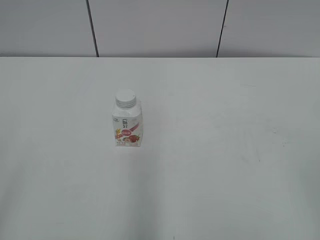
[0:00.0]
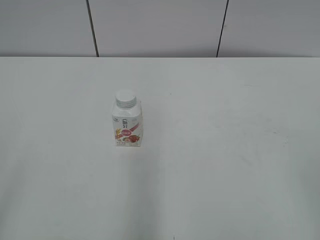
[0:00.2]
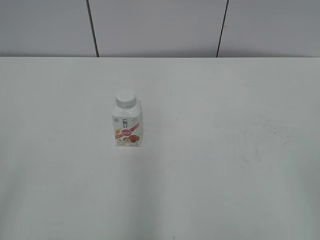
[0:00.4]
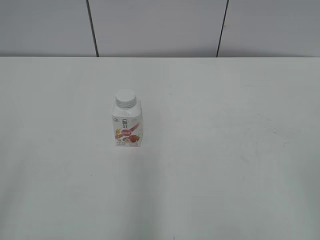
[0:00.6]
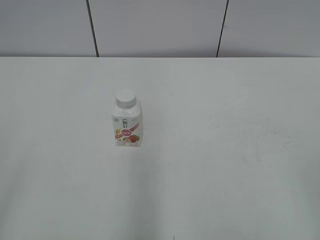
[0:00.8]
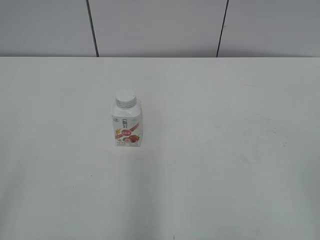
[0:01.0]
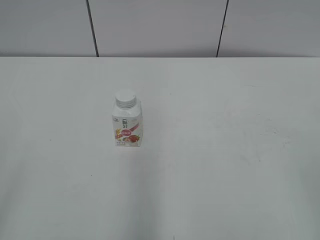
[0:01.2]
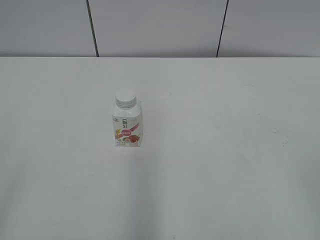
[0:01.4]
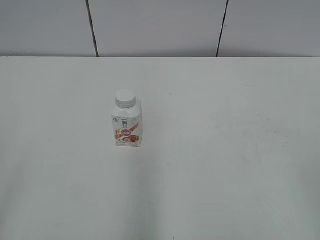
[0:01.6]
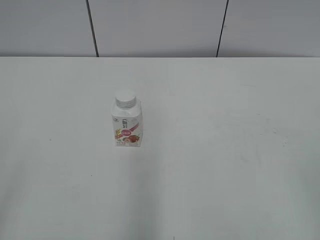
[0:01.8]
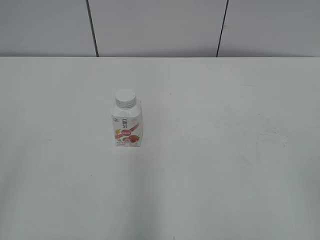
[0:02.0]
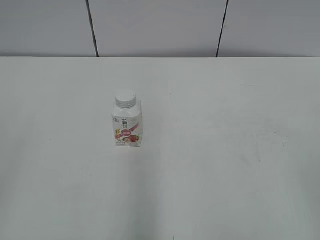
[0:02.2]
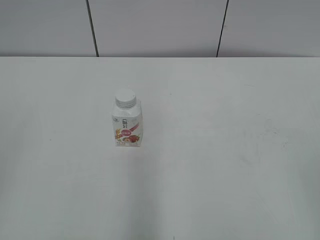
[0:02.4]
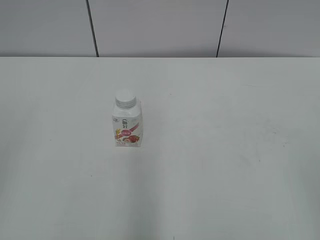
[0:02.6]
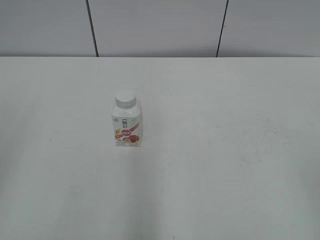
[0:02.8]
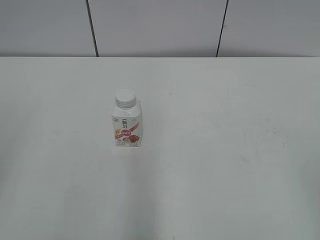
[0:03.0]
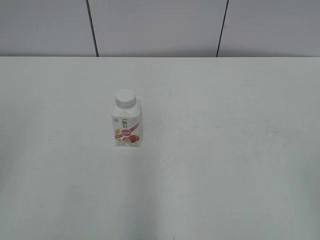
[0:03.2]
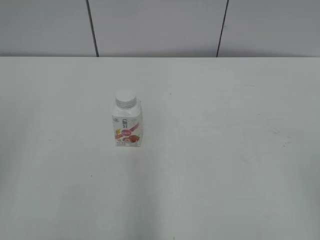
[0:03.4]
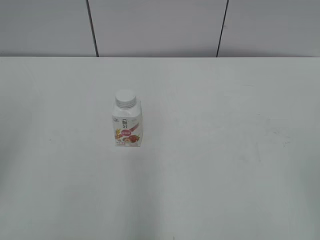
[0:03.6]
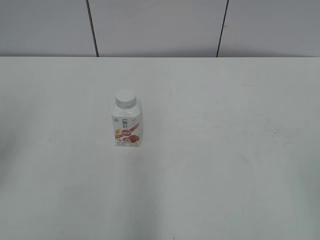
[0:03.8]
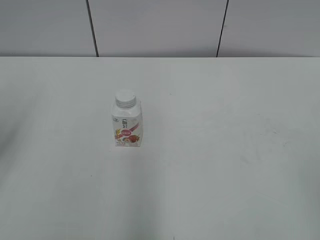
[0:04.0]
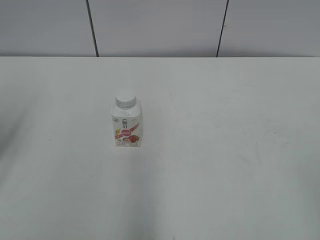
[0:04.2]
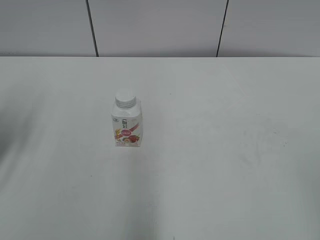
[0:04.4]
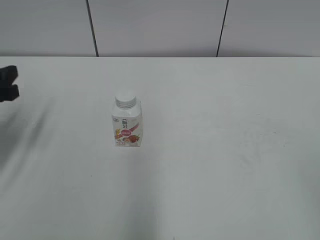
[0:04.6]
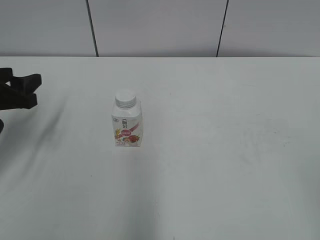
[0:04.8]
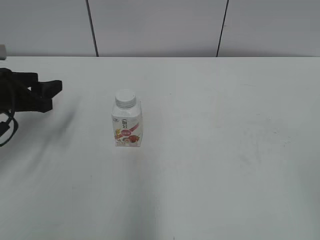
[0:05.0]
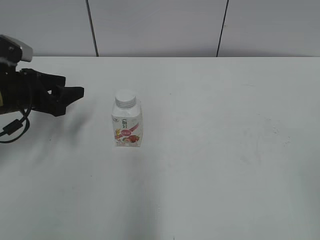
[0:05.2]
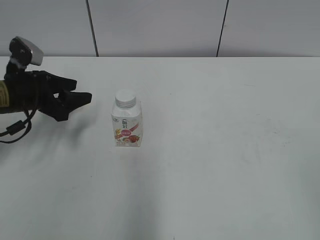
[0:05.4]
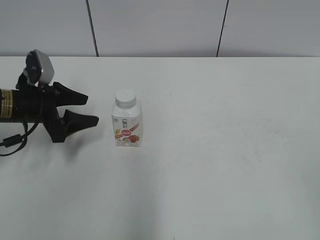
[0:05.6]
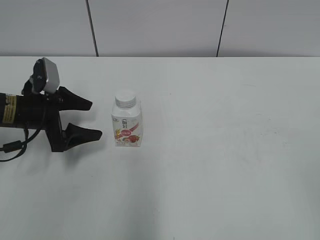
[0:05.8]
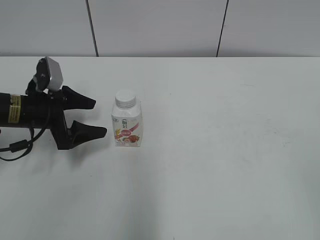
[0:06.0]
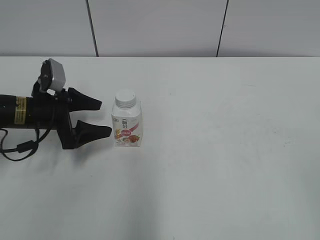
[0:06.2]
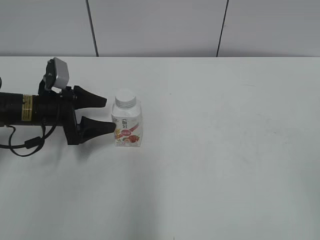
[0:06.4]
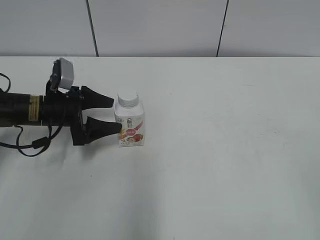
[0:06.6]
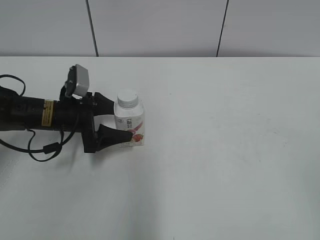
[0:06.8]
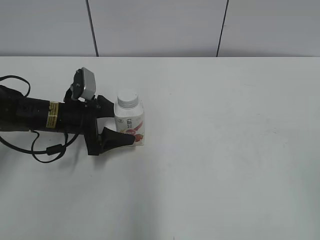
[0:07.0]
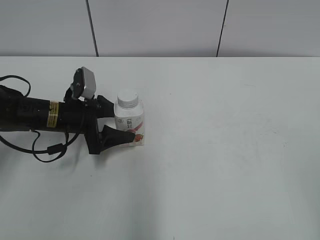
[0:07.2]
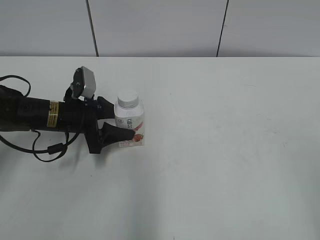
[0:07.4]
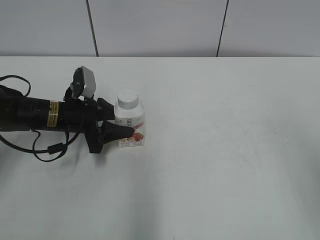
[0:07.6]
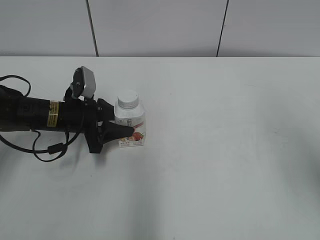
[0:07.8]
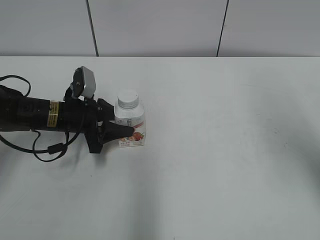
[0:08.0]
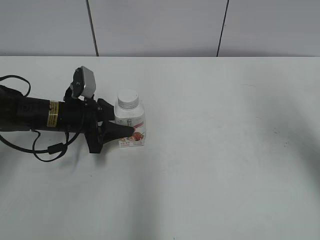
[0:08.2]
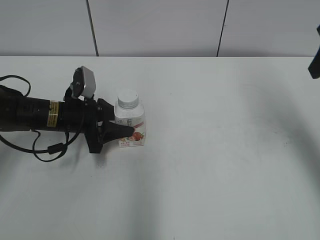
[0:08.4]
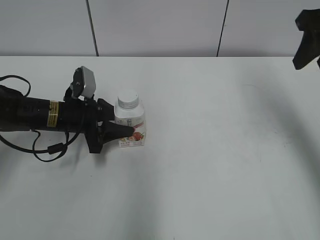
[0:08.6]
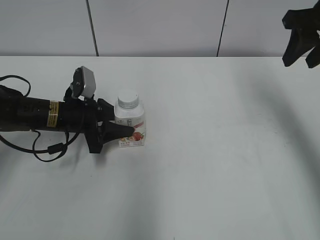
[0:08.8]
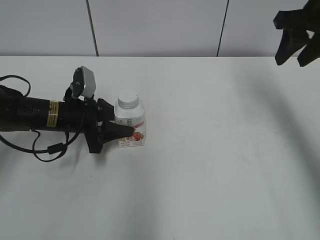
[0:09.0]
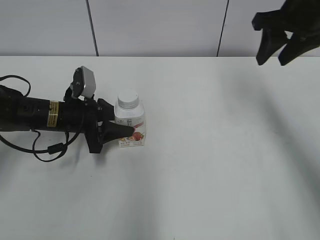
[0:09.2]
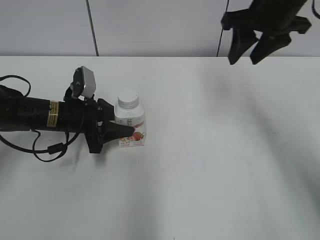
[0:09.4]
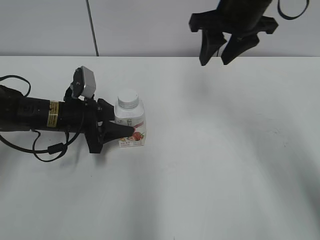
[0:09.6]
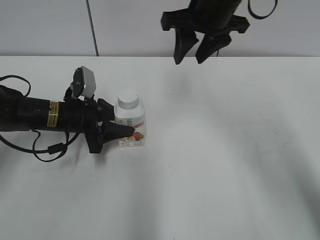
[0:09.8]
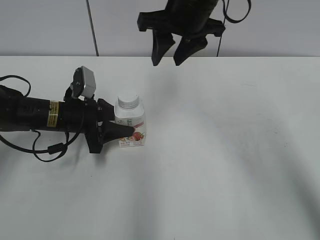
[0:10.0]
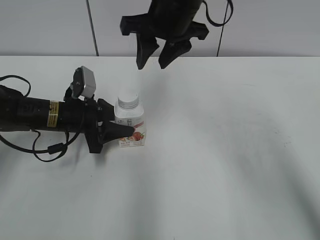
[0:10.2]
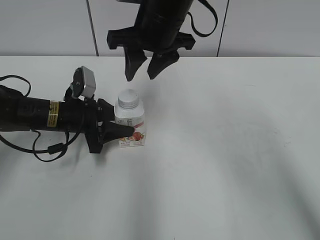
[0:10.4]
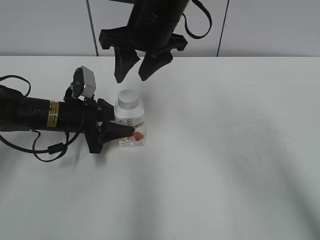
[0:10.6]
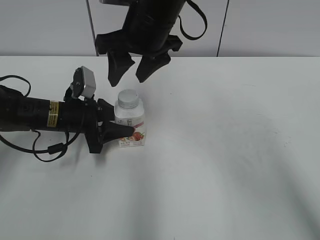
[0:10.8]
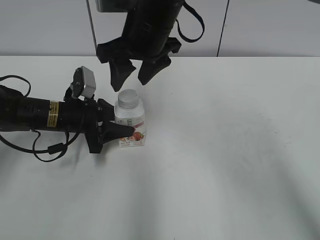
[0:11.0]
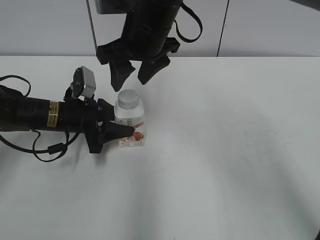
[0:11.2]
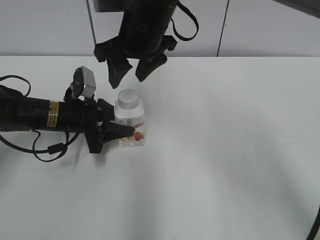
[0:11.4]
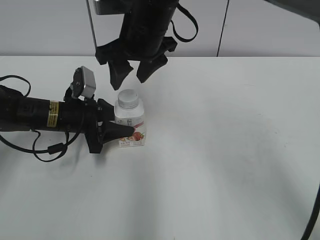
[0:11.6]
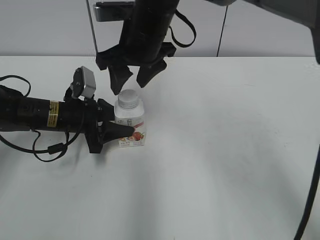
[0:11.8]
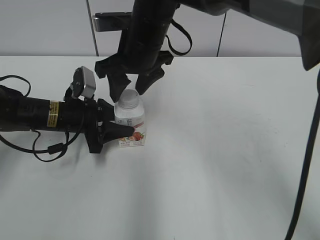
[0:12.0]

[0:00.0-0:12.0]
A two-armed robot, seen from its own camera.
Step, 0:00.0 to 0:07.6: Grab the Yili Changqing with the left hand.
0:03.0 to 0:04.4: The left gripper heads forward and downward, covering about 15 cm.
0:04.4 to 0:06.0: The left gripper heads downward, forward and to the right, covering some 15 cm, and opens.
0:06.0 to 0:07.6: The left gripper goes roughly 5 cm to the right, and closes its fingers; the right gripper is displaced forward and upward by some 10 cm, and closes.
0:07.6 to 0:09.0: The right gripper goes some 30 cm forward.
0:09.0 to 0:10.4: The right gripper shifts approximately 25 cm to the left.
0:10.4 to 0:12.0: The right gripper moves about 5 cm, and opens.

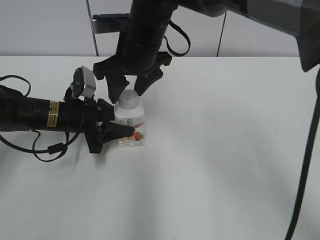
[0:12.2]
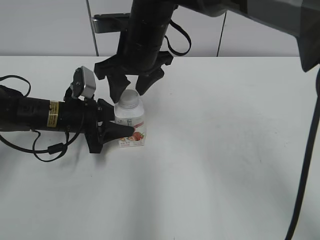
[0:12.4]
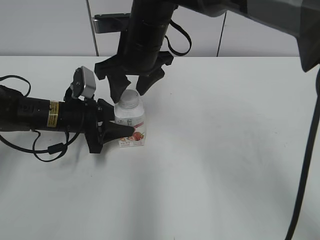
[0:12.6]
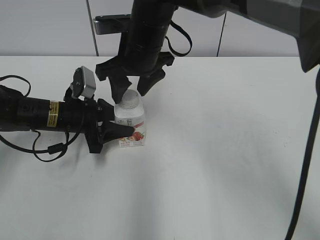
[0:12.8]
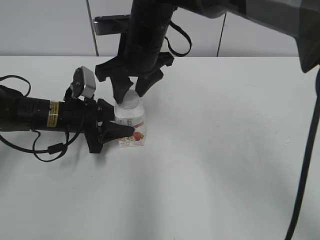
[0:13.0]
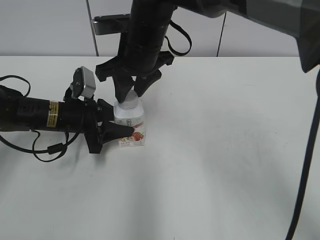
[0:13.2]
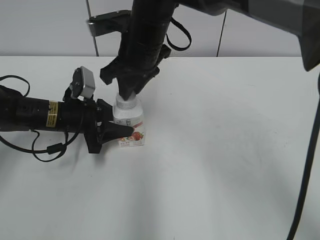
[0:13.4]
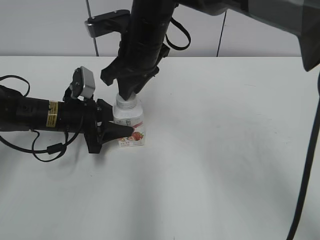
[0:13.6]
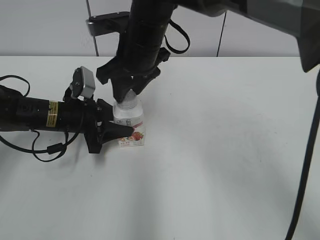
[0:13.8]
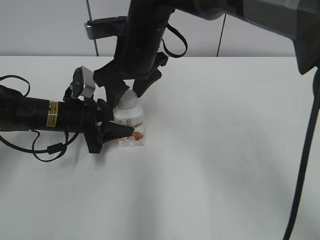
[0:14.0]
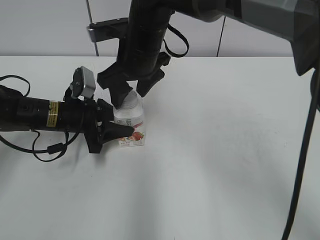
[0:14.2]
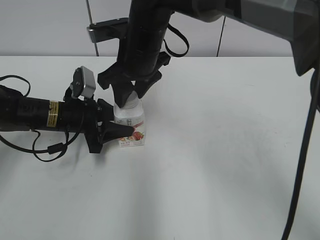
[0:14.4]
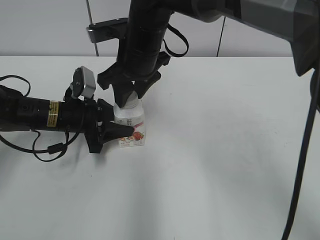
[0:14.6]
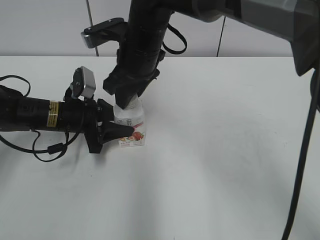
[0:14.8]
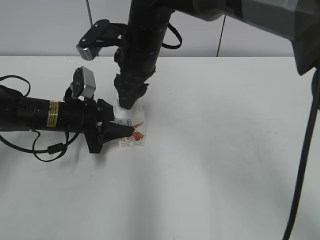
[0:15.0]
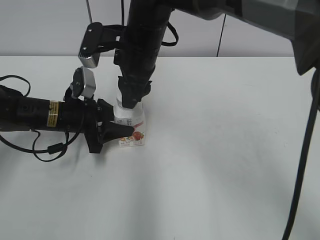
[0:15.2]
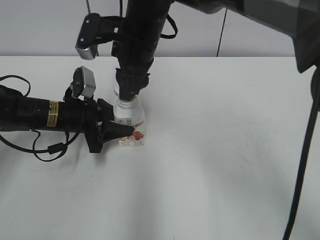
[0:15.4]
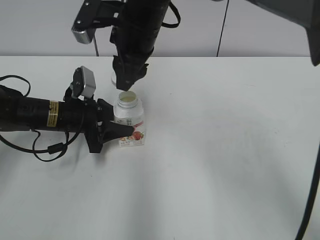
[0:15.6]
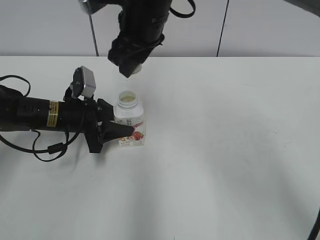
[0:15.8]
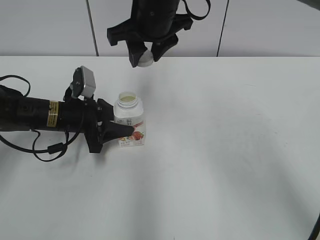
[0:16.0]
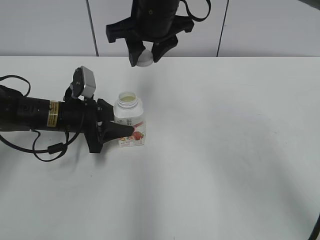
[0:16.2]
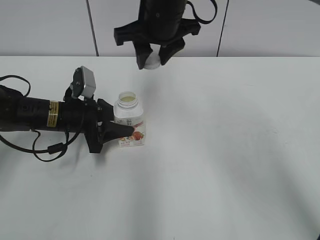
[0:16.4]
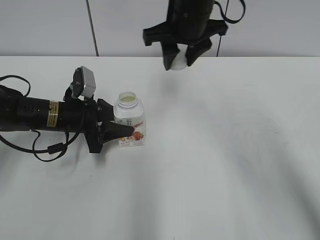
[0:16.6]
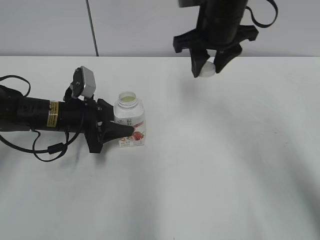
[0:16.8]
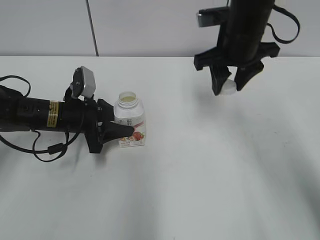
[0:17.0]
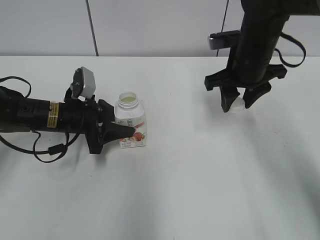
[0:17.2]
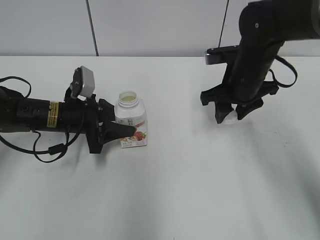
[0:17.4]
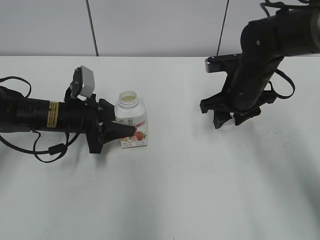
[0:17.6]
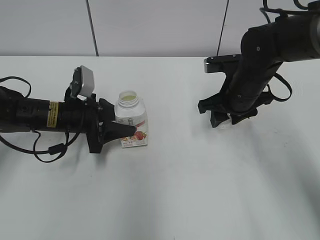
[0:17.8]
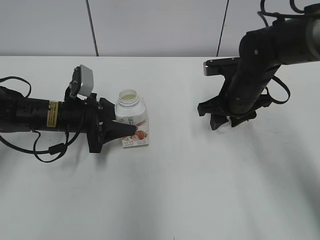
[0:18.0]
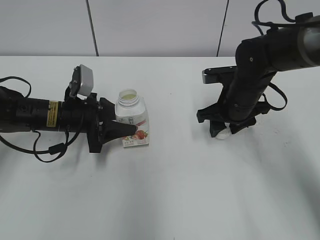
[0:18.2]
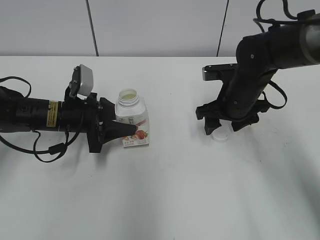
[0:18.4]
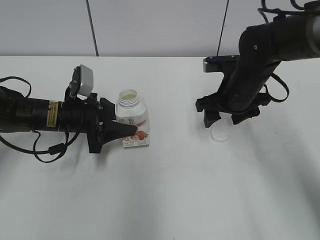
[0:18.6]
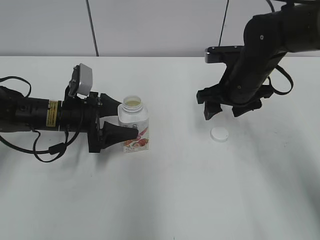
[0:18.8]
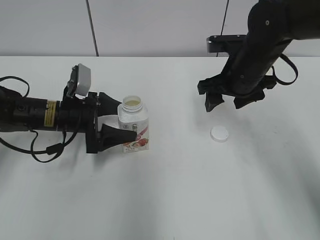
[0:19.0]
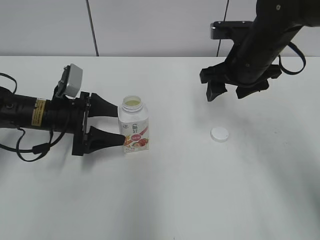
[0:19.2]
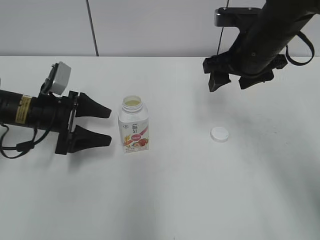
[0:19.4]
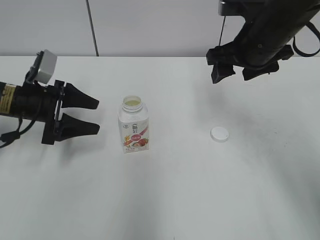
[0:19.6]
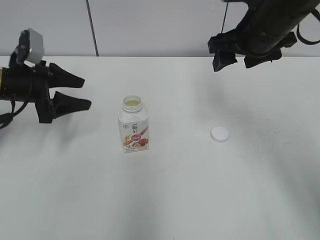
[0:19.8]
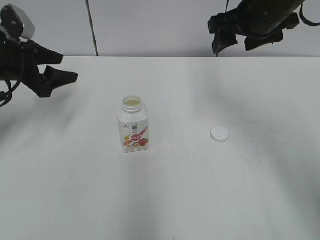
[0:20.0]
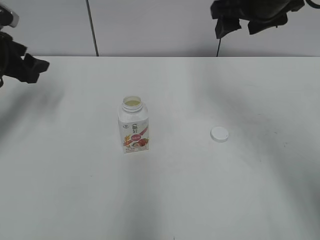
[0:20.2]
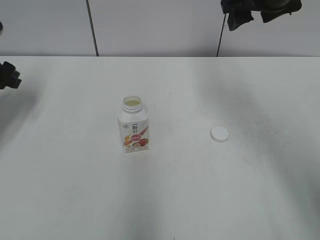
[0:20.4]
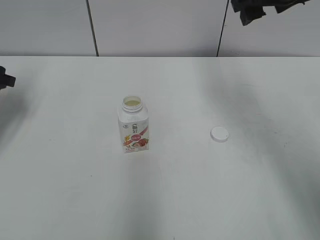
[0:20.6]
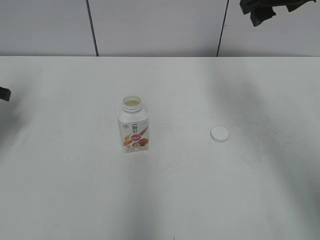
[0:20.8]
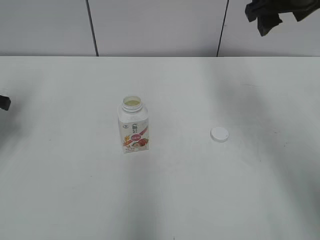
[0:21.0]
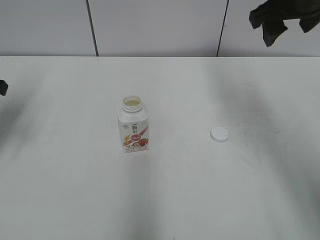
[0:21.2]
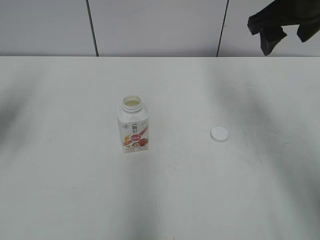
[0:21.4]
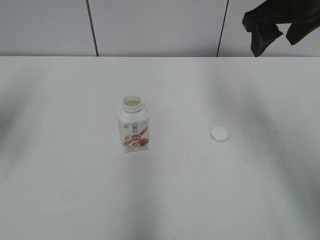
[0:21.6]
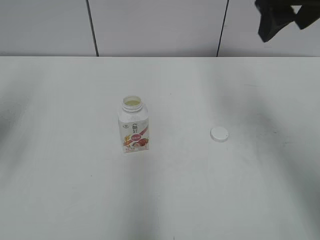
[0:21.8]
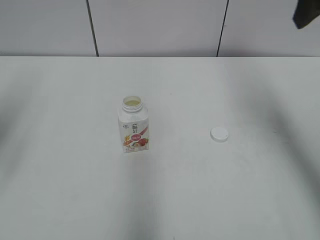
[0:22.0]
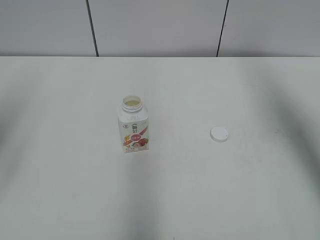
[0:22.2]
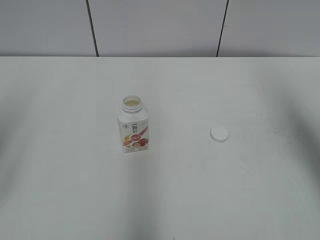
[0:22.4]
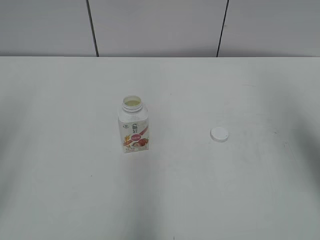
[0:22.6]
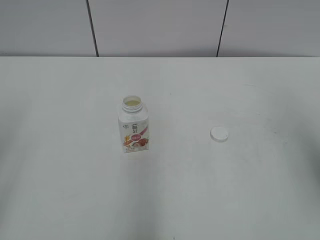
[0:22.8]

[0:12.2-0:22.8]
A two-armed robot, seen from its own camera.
Step, 0:15.6 to 0:18.2: Place the bottle cap on the right.
0:12.2 to 0:13.8: The right gripper closes.
0:13.8 to 0:15.2: The right gripper opens, then closes once more.
0:15.2 to 0:16.8: The right gripper moves to the right, approximately 15 cm.
0:16.8 to 0:18.2: The right gripper is displaced downward by some 15 cm.
0:18.2 to 0:19.8: The right gripper is displaced upward by about 15 cm, and opens its fingers. Meanwhile the left gripper is displaced to the left and upward by some 10 cm, and opens.
0:19.8 to 0:21.2: The left gripper moves upward and to the left, about 10 cm, while the right gripper travels upward by some 5 cm.
0:21.2 to 0:22.8: The left gripper shifts some 20 cm backward. Meanwhile the right gripper travels backward and to the right by roughly 25 cm.
